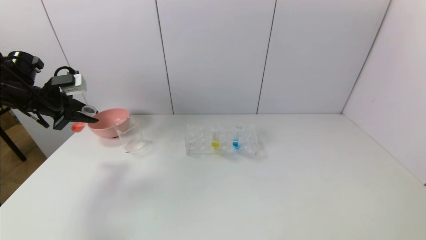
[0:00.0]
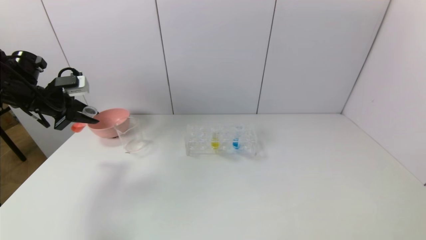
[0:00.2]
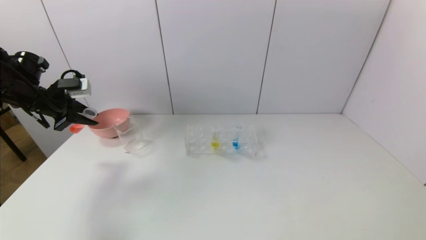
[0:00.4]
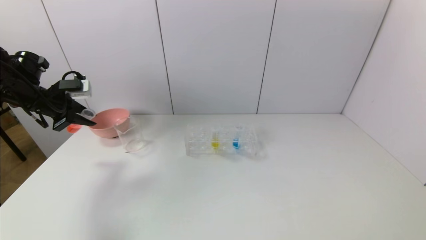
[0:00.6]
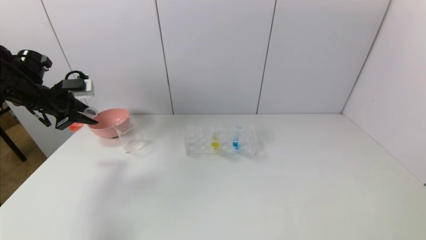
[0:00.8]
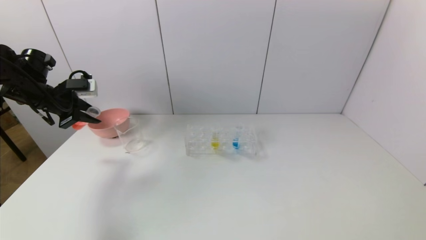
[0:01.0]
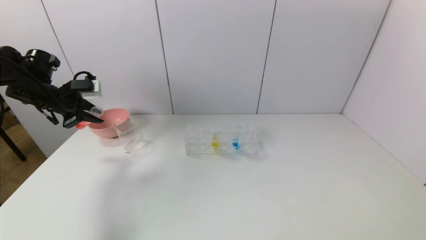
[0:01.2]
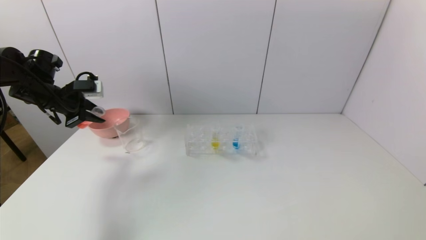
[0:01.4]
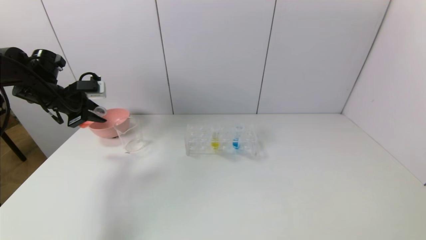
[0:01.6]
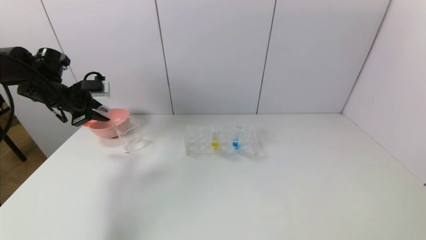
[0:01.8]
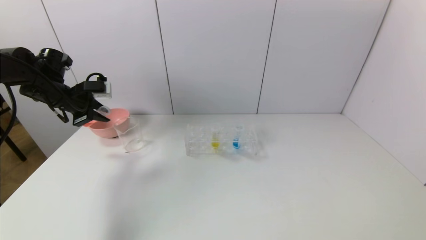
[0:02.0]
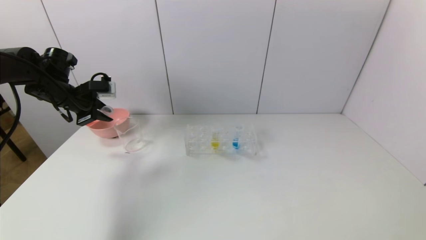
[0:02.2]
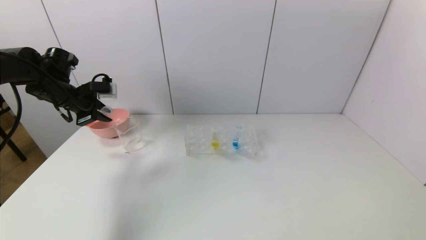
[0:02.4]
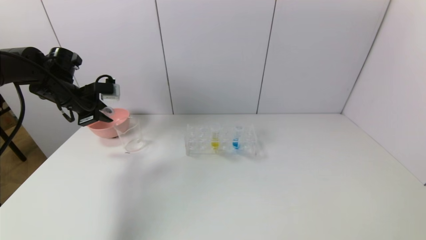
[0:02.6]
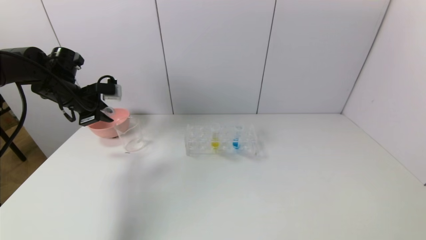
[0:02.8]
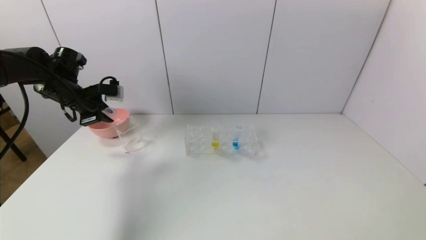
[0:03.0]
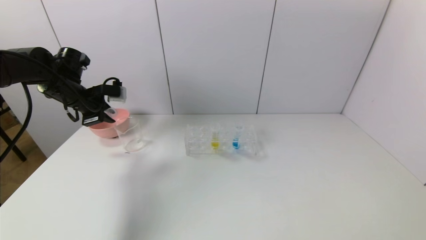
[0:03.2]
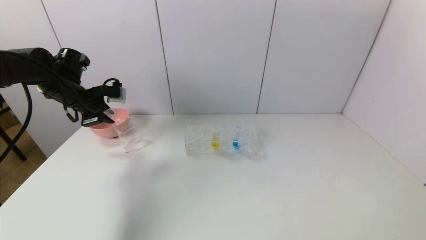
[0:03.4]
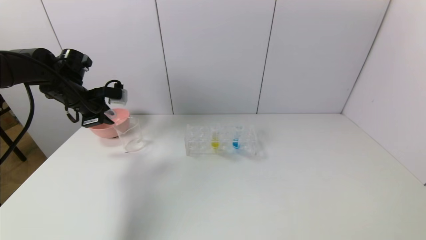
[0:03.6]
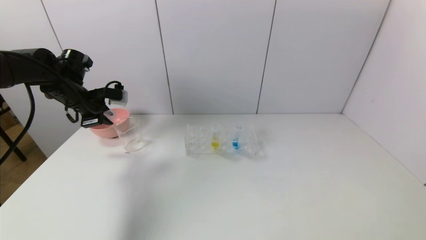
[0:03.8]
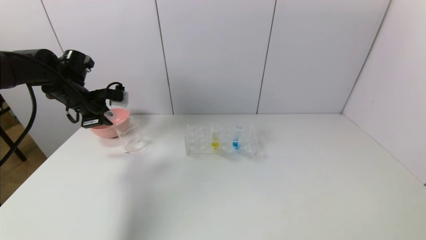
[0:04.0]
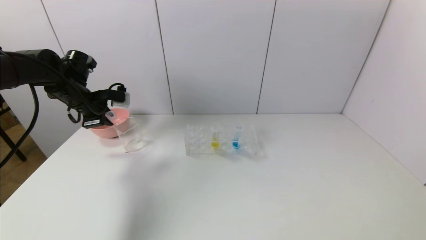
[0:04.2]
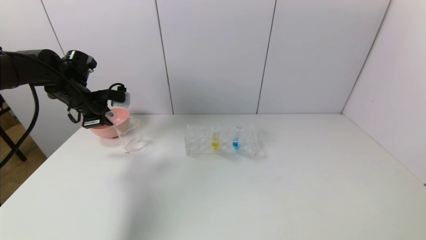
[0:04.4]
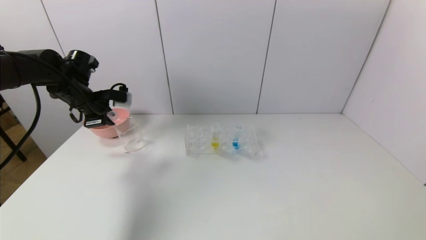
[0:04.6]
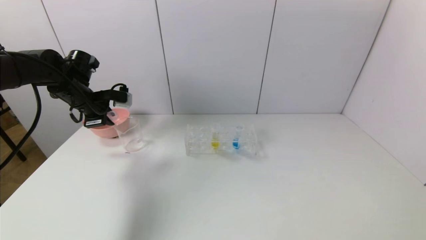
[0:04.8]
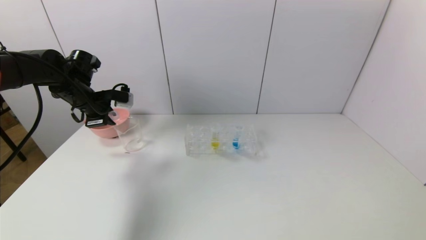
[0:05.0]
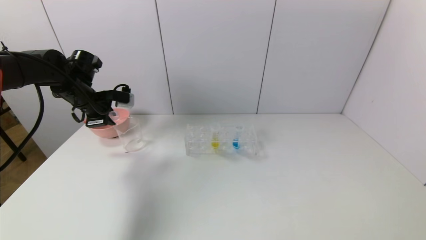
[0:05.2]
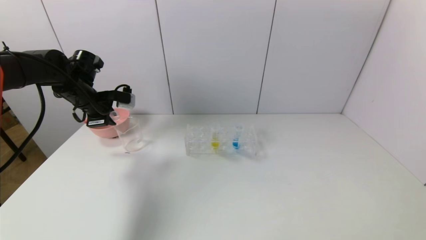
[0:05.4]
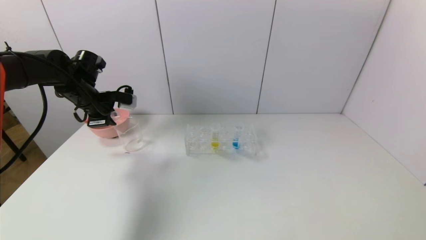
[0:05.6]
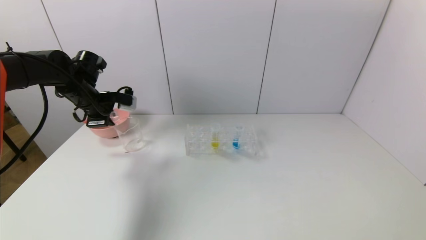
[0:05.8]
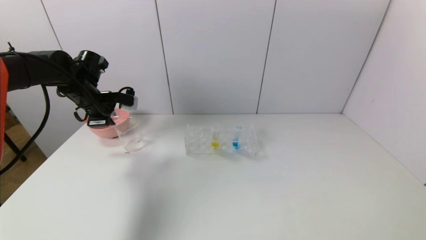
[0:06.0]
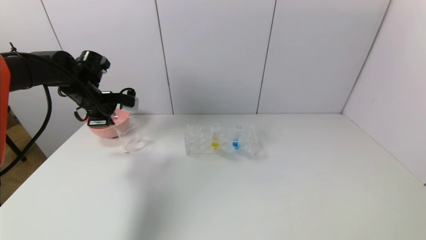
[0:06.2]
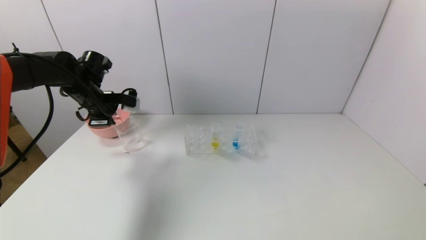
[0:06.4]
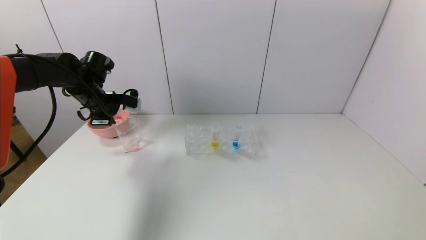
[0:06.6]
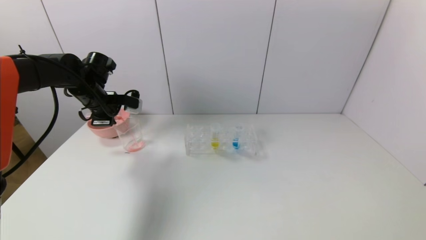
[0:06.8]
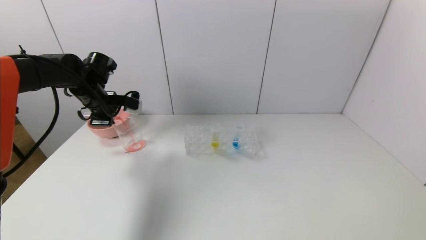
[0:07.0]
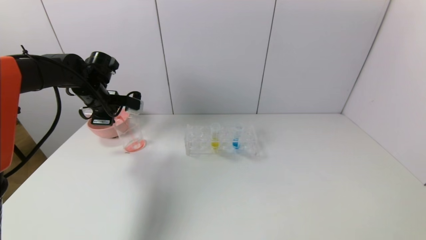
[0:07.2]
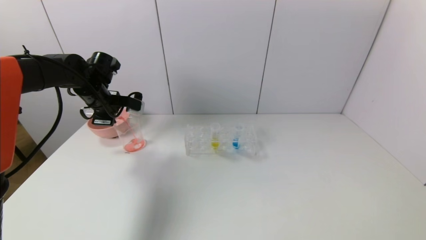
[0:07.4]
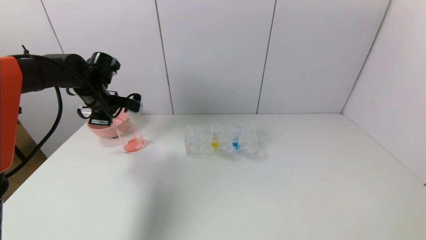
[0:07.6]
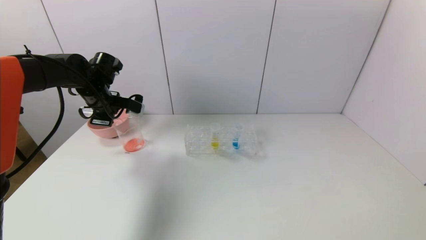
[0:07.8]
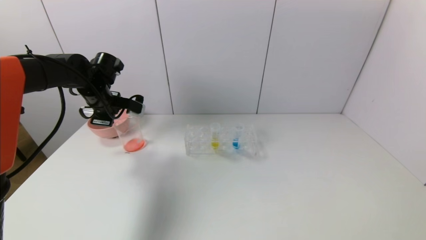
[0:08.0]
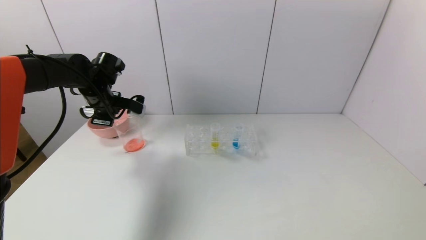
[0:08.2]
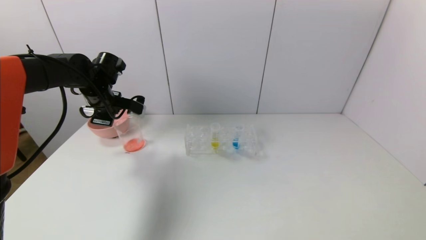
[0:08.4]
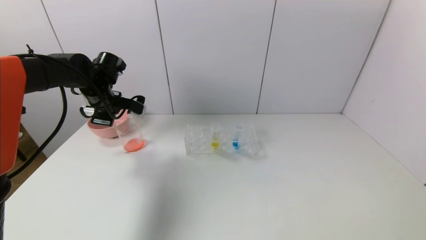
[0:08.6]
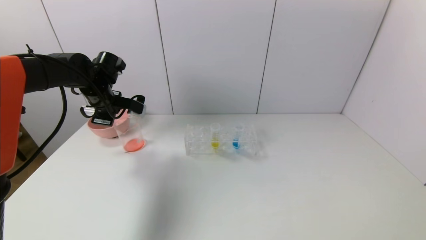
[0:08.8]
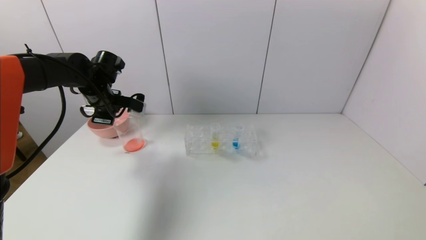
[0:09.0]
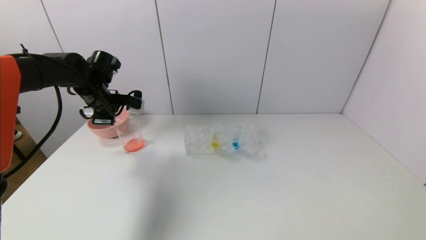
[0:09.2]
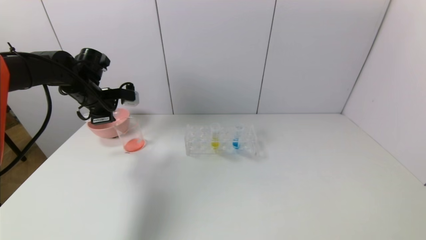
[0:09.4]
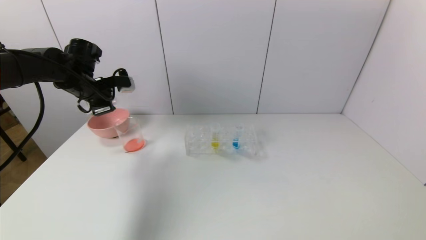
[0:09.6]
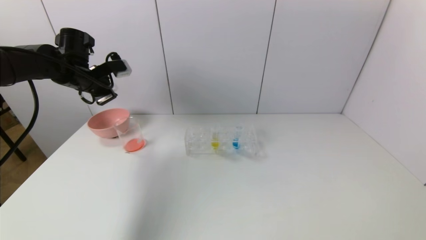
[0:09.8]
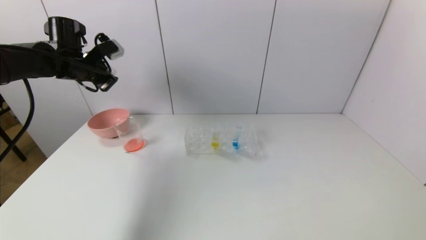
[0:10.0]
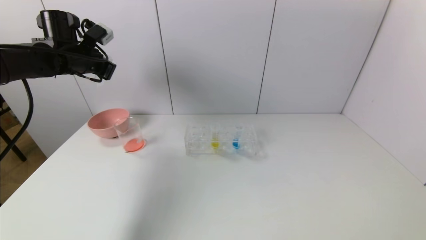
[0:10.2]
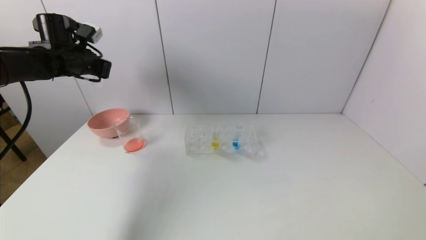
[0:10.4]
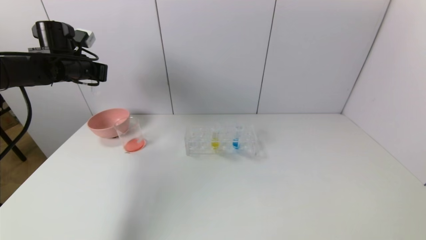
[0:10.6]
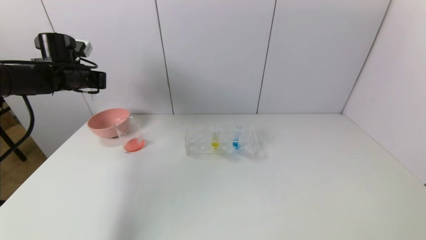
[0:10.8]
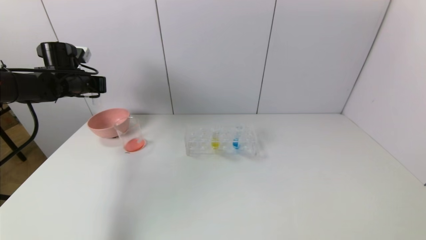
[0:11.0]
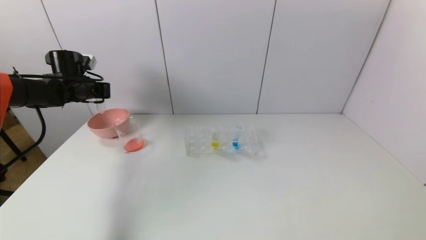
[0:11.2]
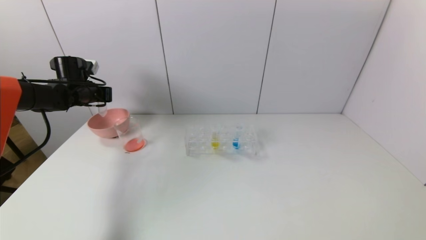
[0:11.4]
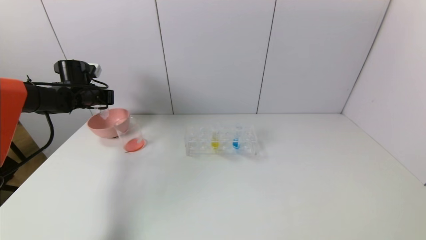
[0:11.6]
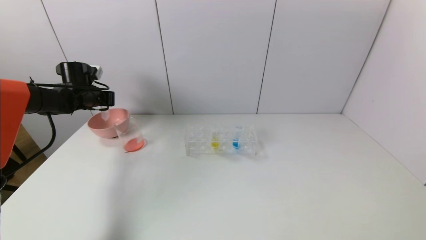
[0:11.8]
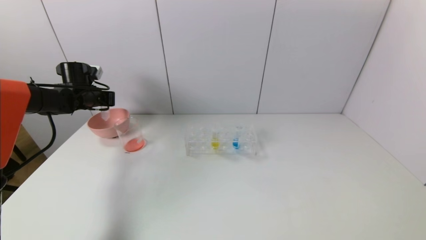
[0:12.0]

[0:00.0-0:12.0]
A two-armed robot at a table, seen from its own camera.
Task of the whole recording: pick up the test tube with yellow pigment and the test tube with red pigment by grippers and pour them into the beaker.
Step, 0:00.0 to 0:08.4: Pour the red reagent into the graduated cylinder with the left gripper.
0:00.0 to 0:01.6: There are only small adjustments of the grippers.
0:01.6 to 0:04.4: There are only small adjustments of the grippers.
0:04.4 to 0:06.0: There are only small adjustments of the grippers.
0:06.0 to 0:07.6: There are only small adjustments of the grippers.
0:07.6 to 0:09.0: Neither gripper changes place.
0:09.0 to 0:10.4: The left gripper heads upward and to the left, covering about 10 cm.
0:10.4 to 0:12.0: The left gripper travels downward by some 10 cm.

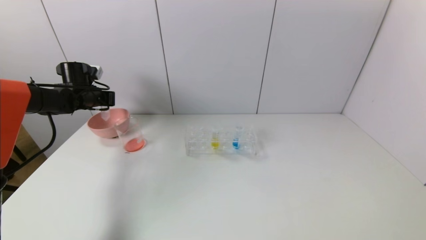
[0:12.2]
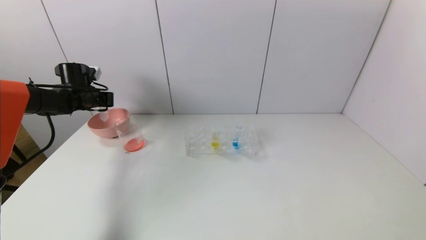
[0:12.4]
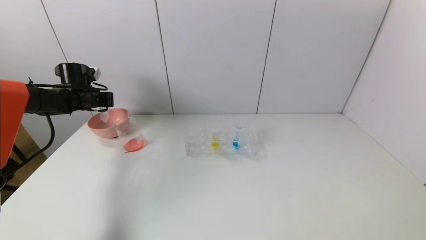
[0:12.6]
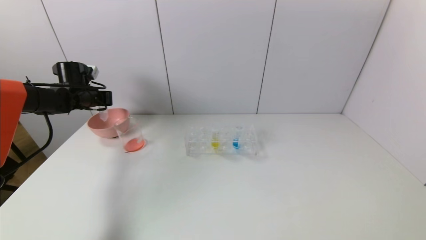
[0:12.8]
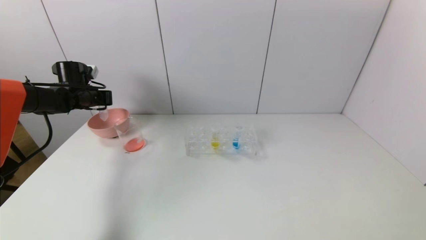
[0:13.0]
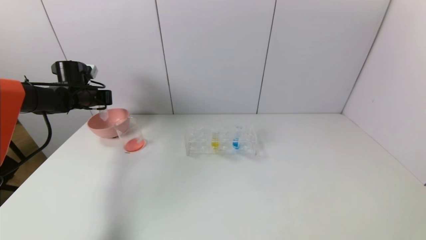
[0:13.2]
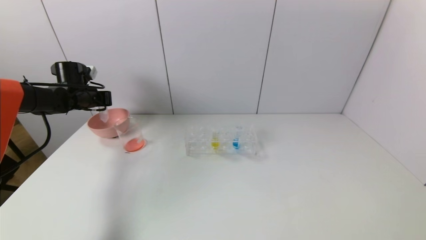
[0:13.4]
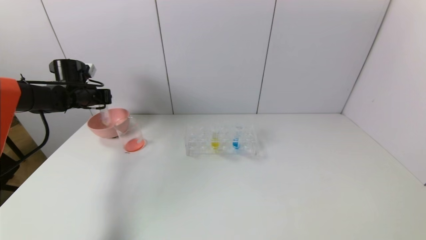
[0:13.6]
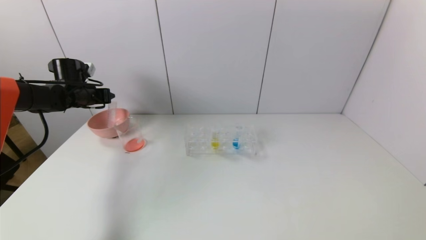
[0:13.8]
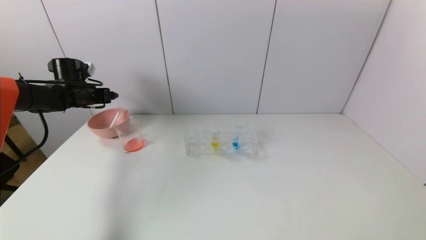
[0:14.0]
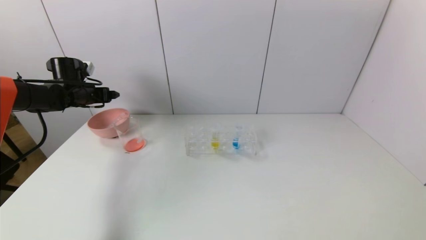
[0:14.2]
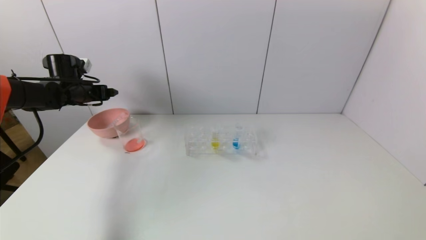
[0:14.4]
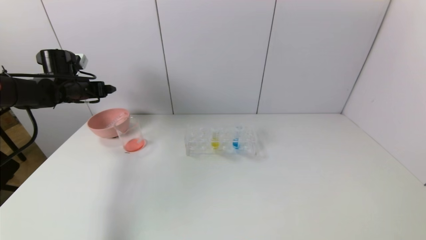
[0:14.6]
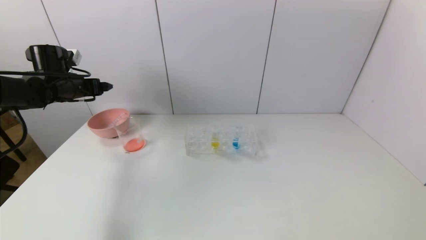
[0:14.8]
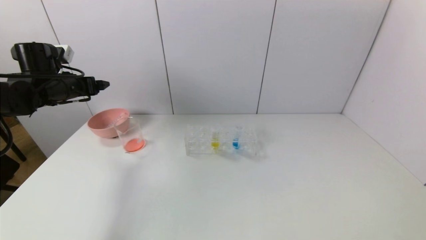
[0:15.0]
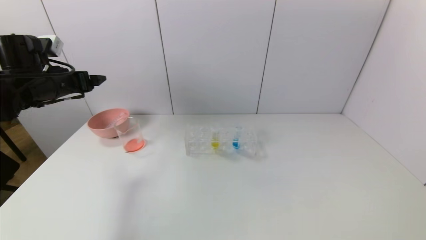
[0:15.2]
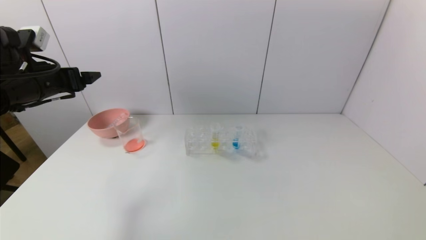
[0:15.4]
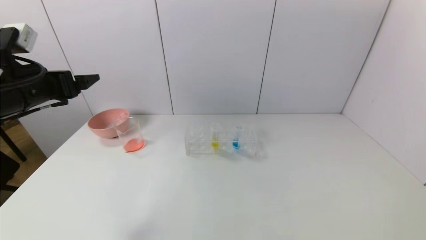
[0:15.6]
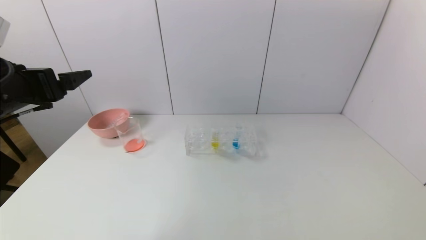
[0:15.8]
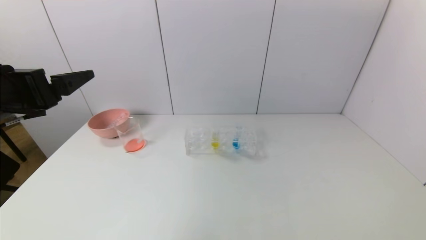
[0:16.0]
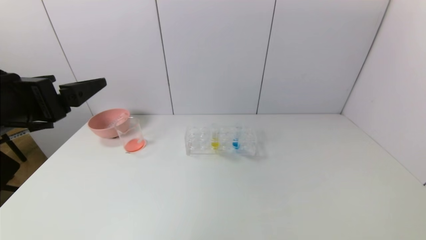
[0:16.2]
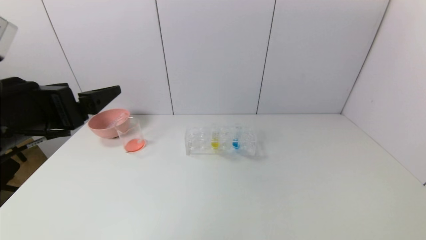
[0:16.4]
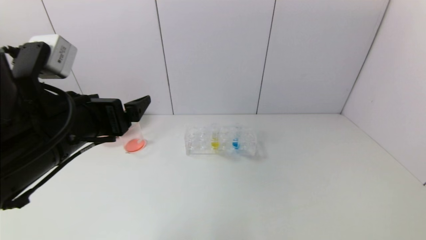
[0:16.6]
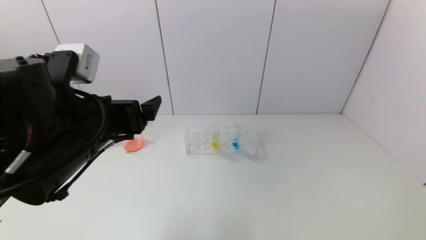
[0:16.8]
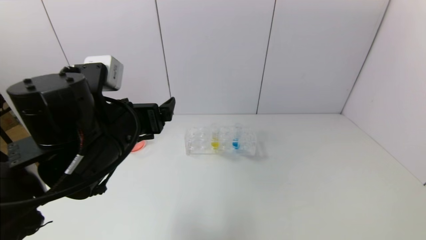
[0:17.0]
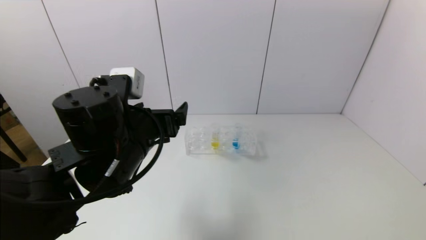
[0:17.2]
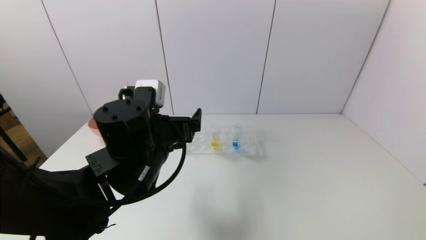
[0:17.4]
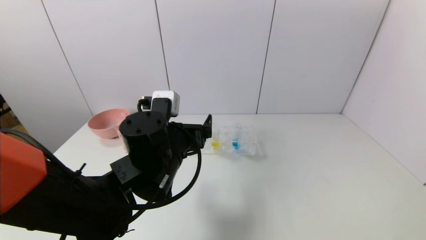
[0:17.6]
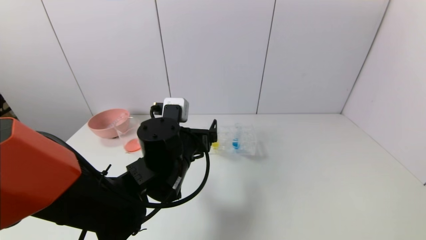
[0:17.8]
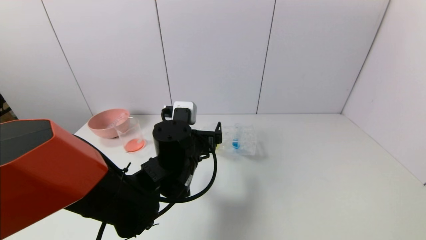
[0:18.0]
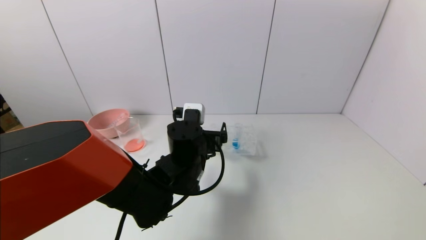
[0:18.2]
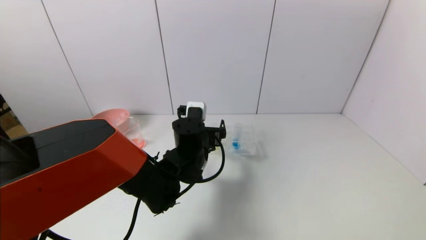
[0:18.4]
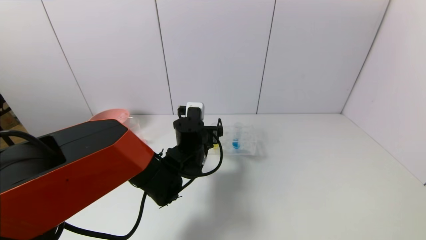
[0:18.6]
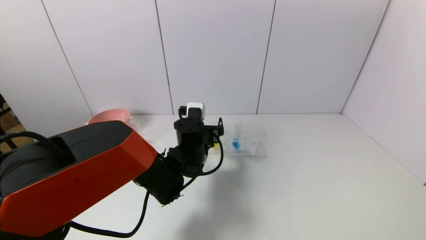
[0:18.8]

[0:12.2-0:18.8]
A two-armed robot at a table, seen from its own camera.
Task of the whole recording: pick up the test tube with yellow pigment and the test tube with red pigment by grippers and pour them into the beaker.
0:12.2 to 0:13.8: The left gripper opens.
0:13.8 to 0:15.4: The left gripper shifts about 20 cm backward and upward, and opens.
0:15.4 to 0:17.2: The left gripper travels to the right by roughly 20 cm.
0:17.2 to 0:18.8: The left gripper goes about 20 cm forward, downward and to the right.
